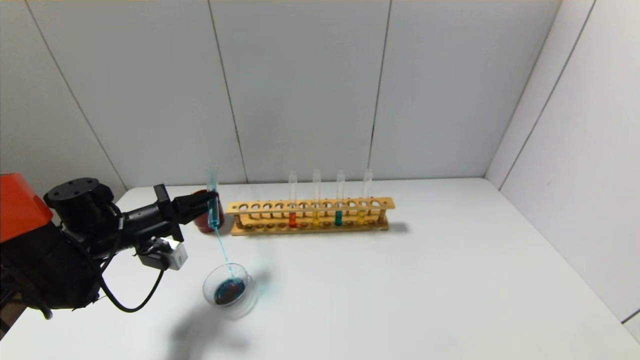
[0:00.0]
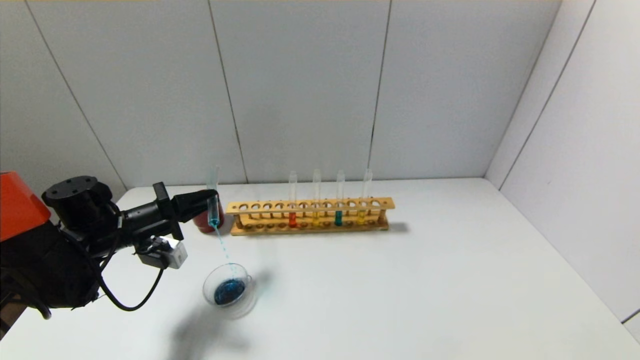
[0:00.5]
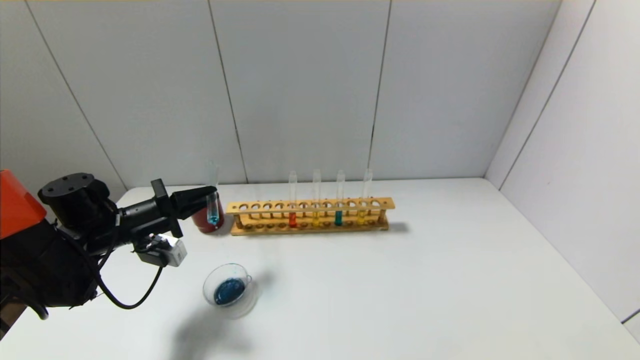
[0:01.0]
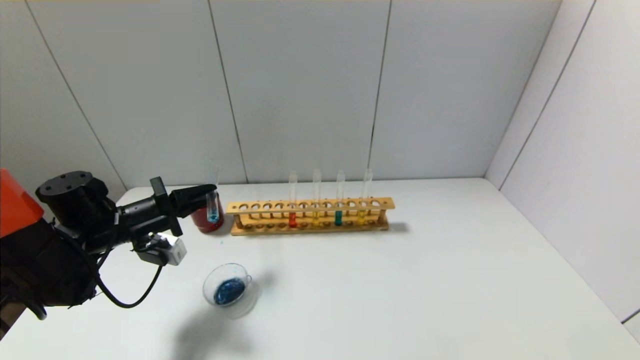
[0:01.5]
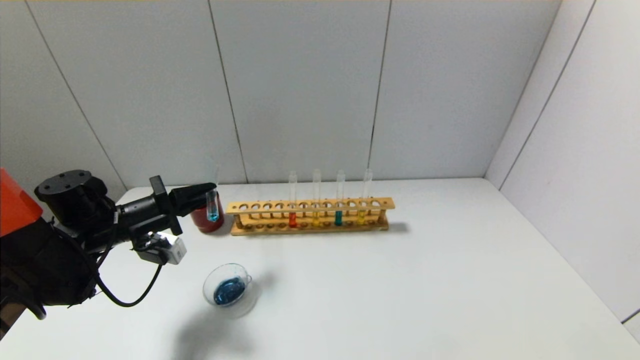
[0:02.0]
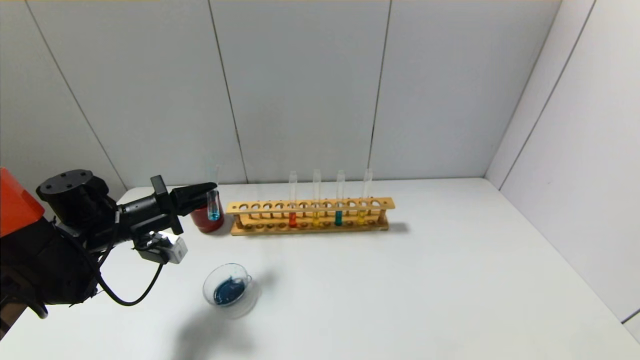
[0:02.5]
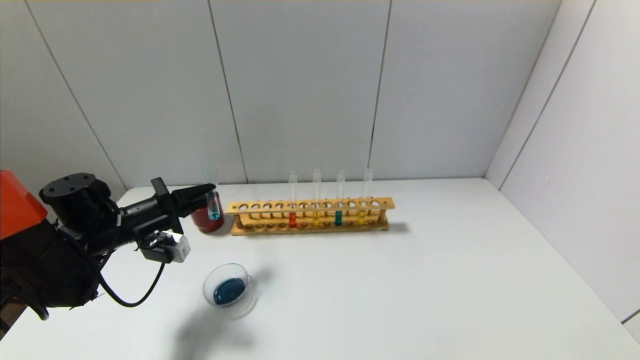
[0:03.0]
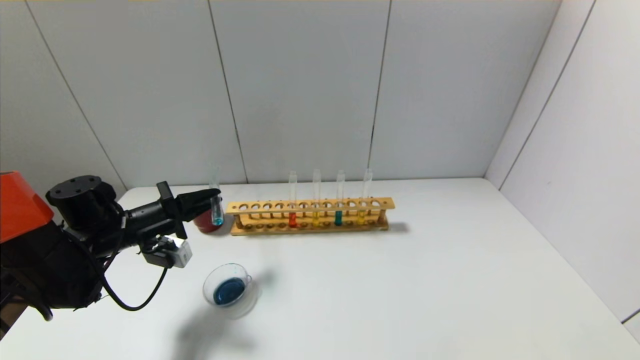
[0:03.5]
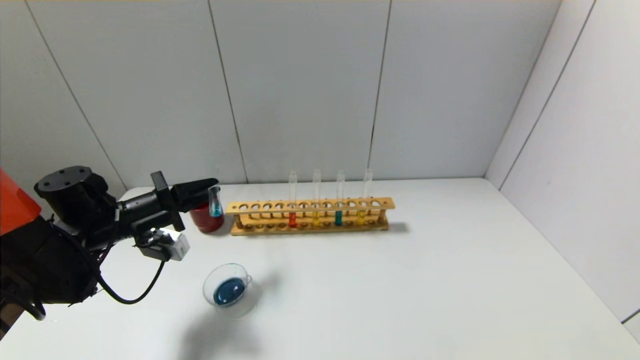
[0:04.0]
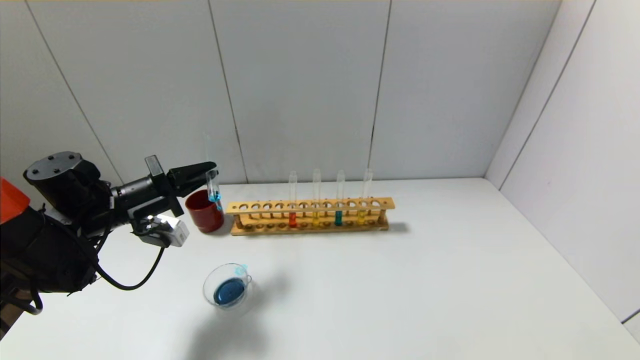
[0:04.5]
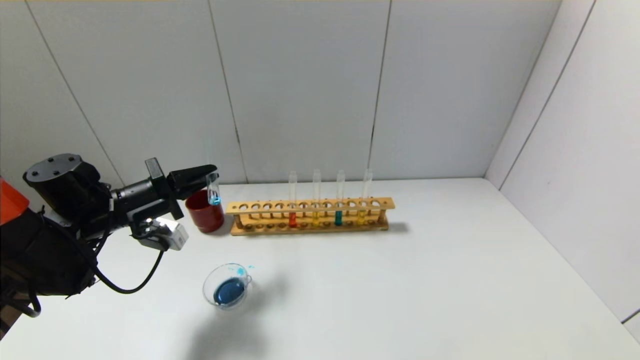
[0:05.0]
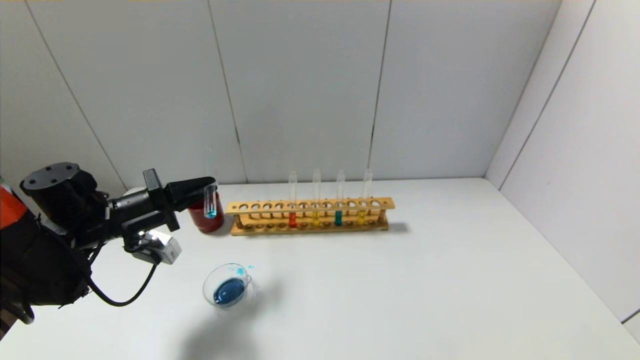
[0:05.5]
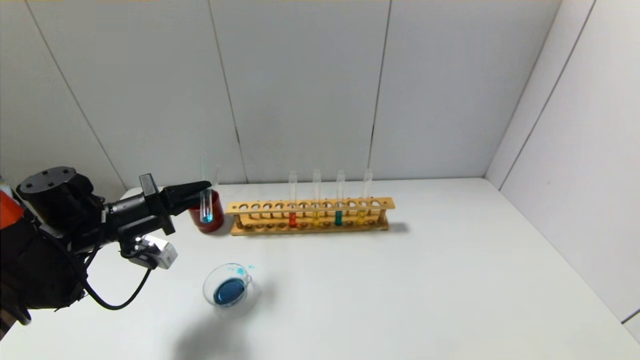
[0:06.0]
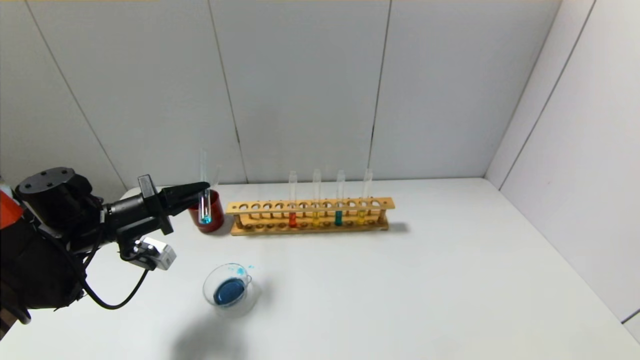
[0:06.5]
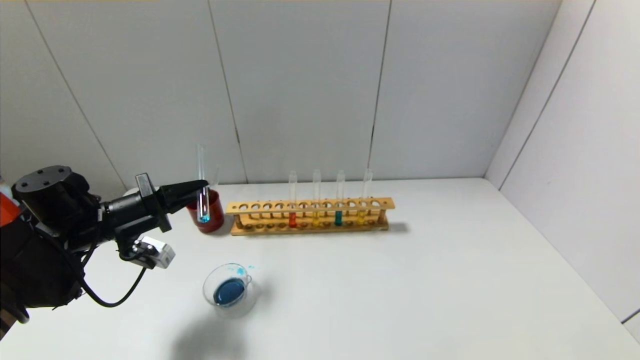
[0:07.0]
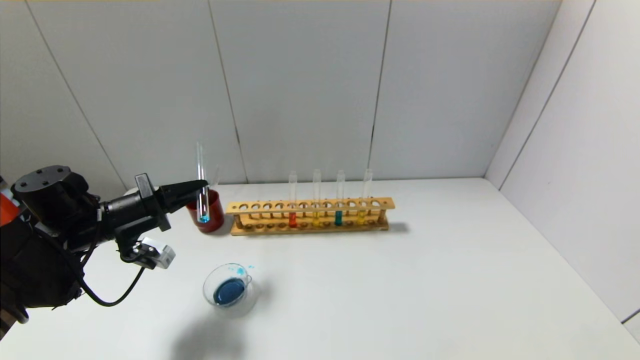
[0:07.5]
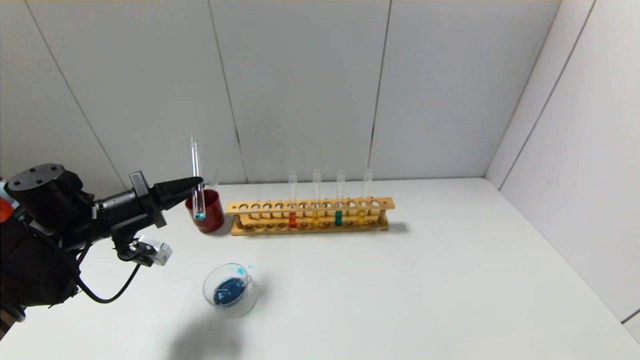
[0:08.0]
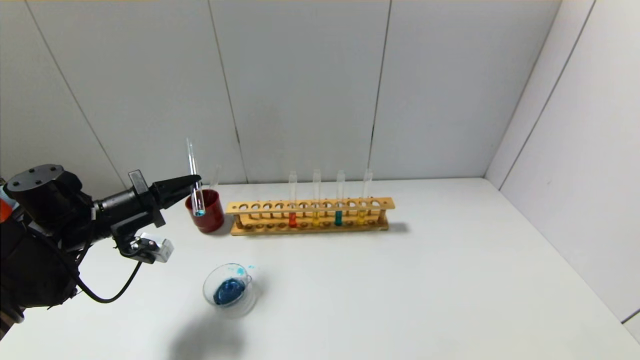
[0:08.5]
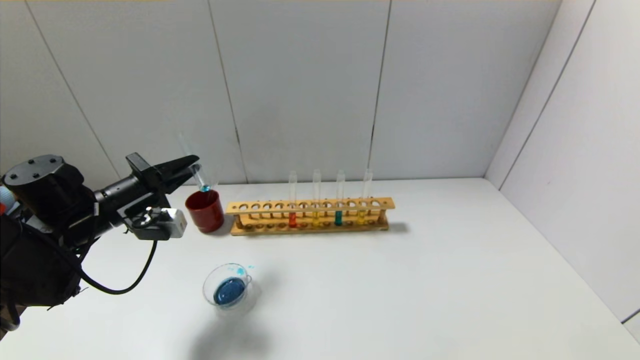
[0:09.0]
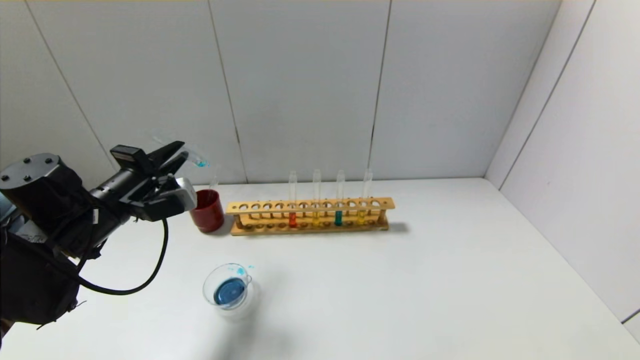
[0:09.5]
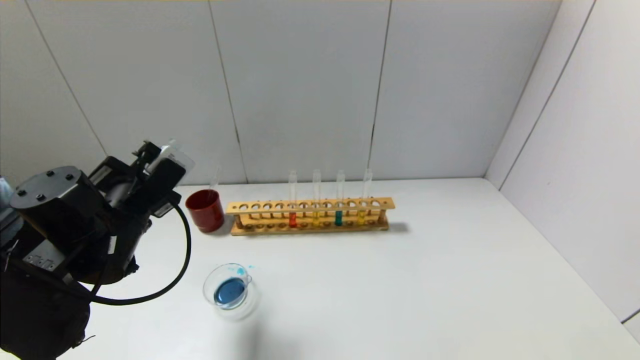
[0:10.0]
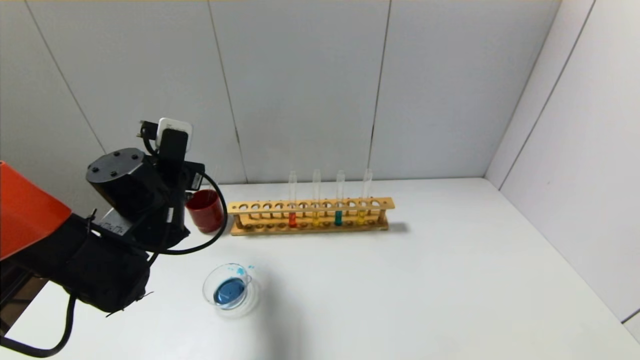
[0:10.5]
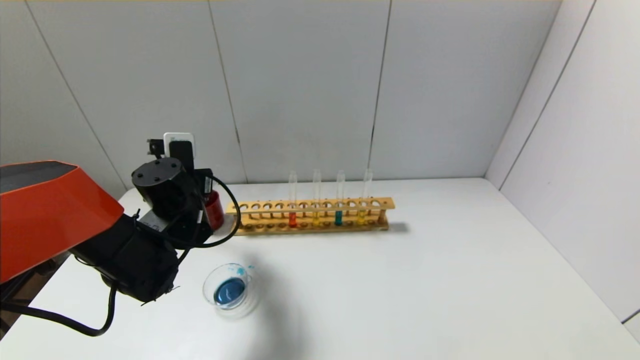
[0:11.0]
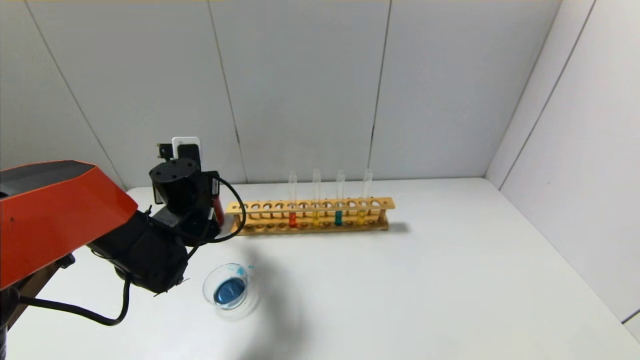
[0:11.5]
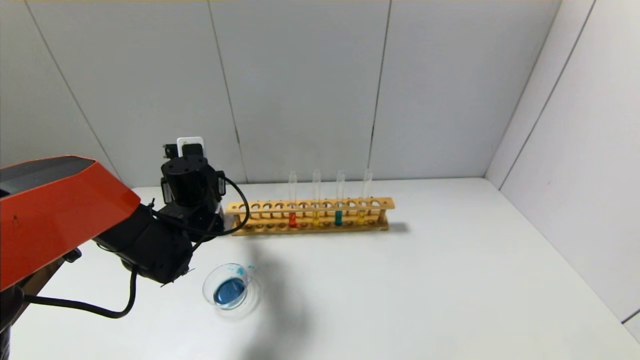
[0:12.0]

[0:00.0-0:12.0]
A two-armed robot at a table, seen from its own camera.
Step, 0:00.0 to 0:09.0: Pour the blue reagent into the graduated cylinder with the left gripper.
0:00.0 to 0:02.0: There are only small adjustments of the grippers.
0:02.0 to 0:04.0: Both grippers stay about where they are.
0:04.0 to 0:08.0: The grippers move only a little.
0:08.0 to 0:10.0: The left gripper is displaced to the right and backward by about 10 cm.
0:10.0 to 0:12.0: The left gripper is displaced forward by some 10 cm.

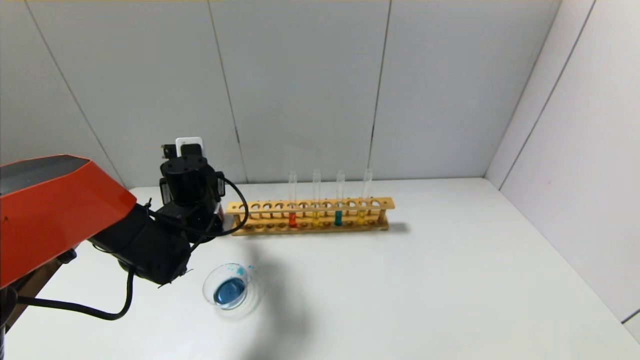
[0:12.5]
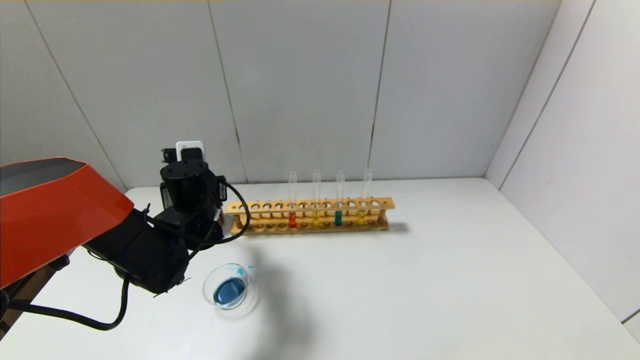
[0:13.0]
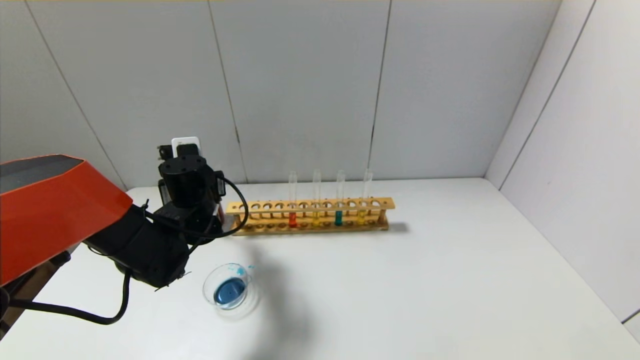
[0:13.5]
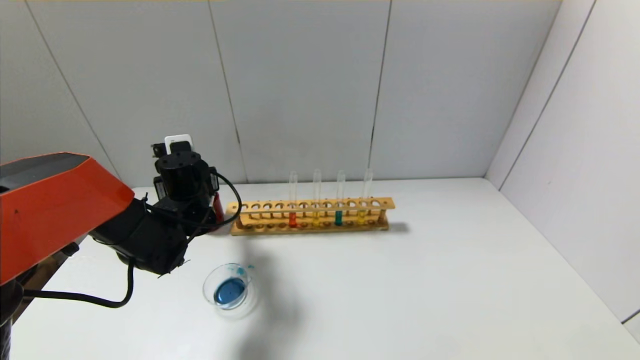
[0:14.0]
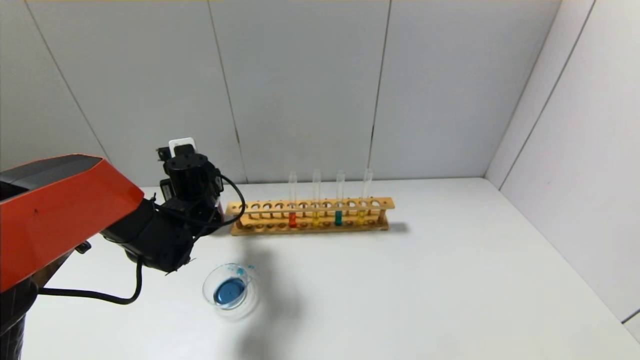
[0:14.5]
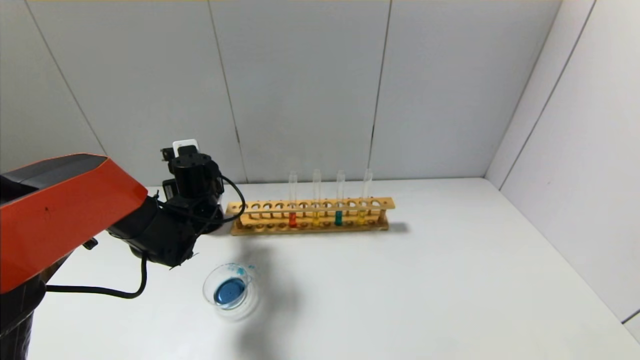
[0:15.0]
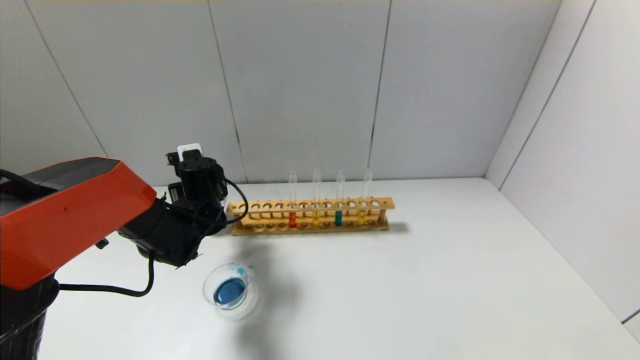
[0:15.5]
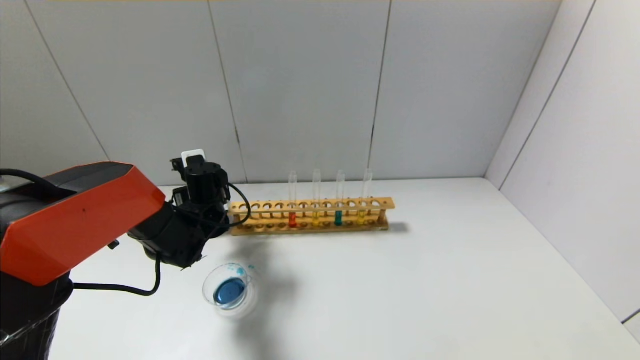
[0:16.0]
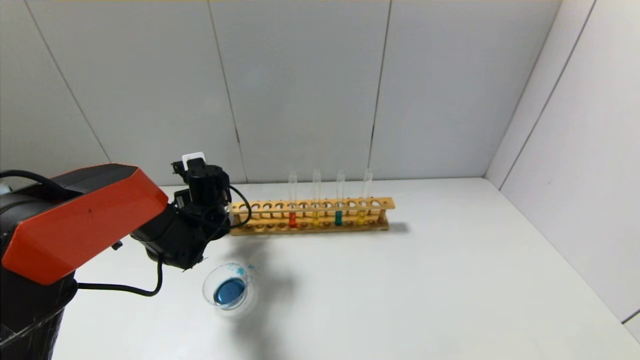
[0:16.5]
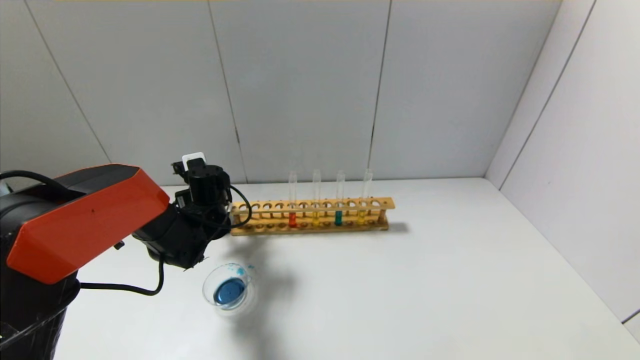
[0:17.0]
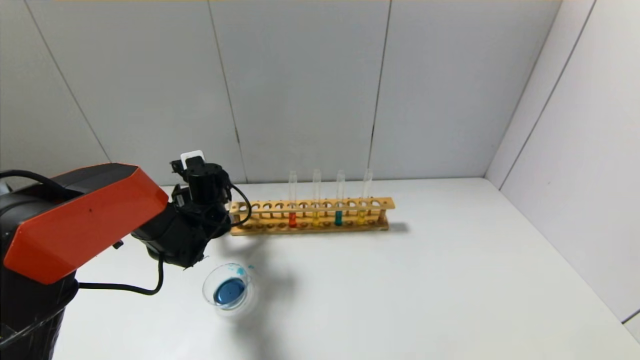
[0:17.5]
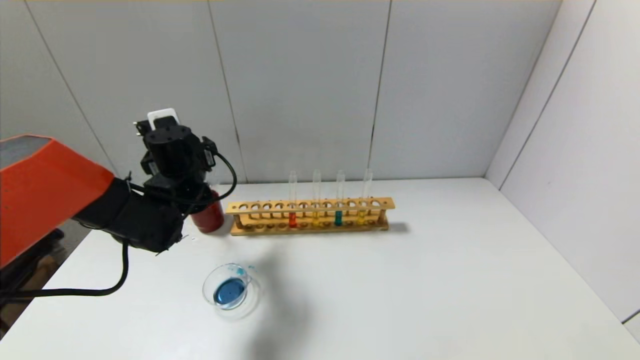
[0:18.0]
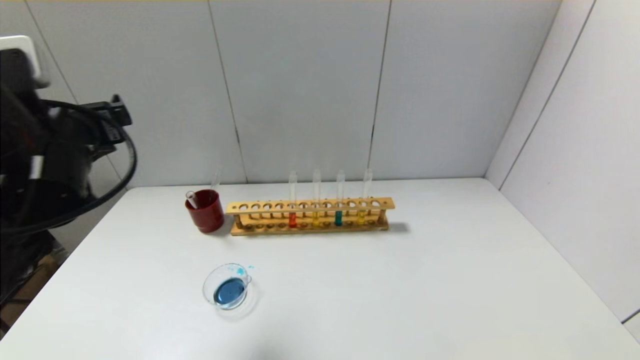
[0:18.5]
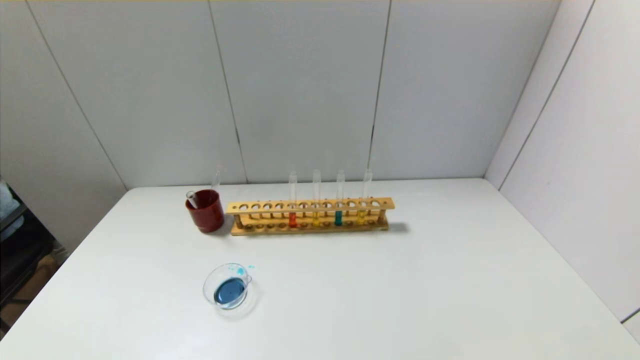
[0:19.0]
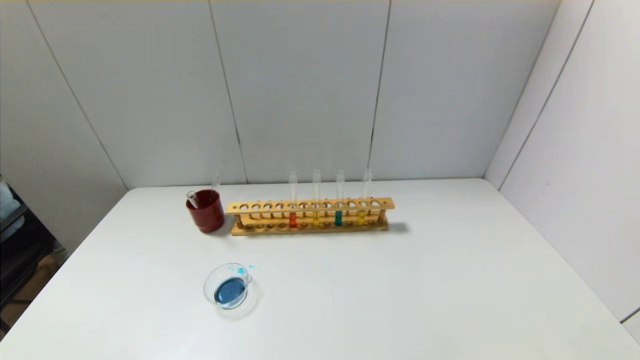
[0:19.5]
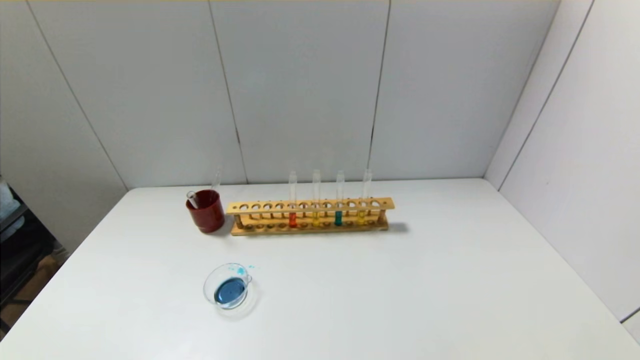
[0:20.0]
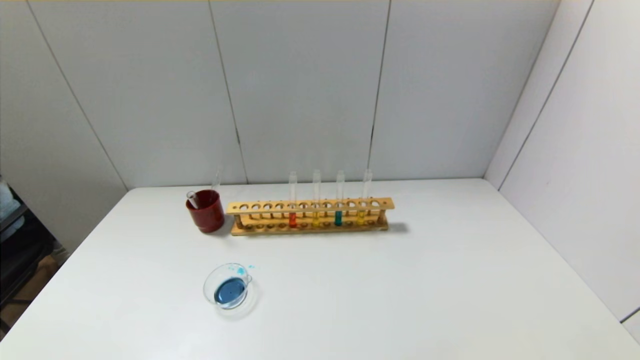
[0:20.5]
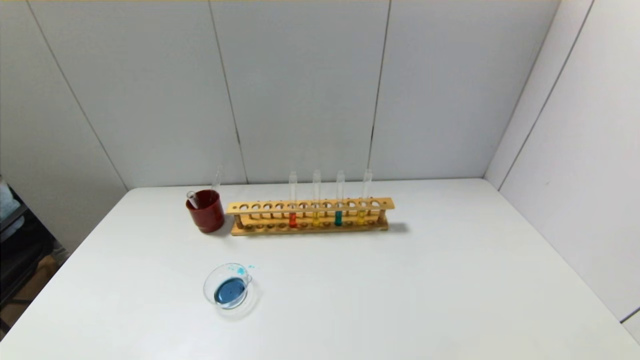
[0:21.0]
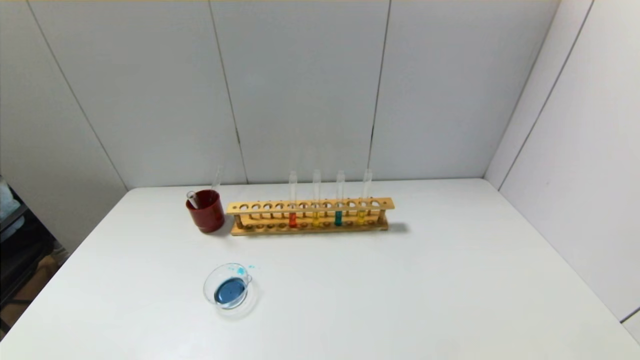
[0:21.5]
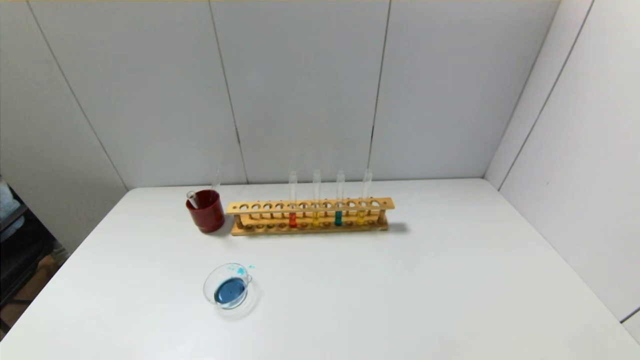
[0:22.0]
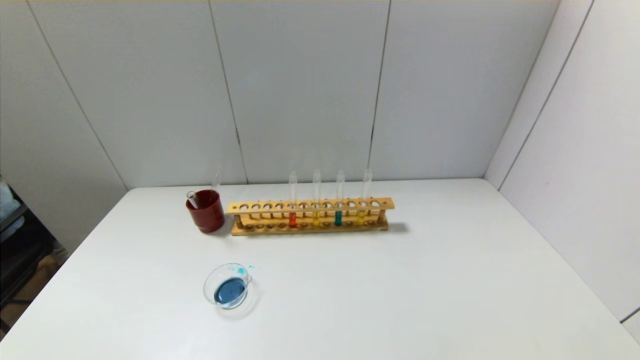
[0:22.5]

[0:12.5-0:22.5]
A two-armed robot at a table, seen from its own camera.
Step, 0:12.5 to 0:17.0: Place the test tube into the brown cup with the left gripper.
0:12.5 to 0:14.5: The grippers move only a little.
0:14.5 to 0:16.5: The grippers stay close to where they were, moving slightly.
0:16.5 to 0:18.5: The left gripper is displaced upward and backward by about 25 cm, and opens.
0:18.5 to 0:20.5: The left gripper is displaced backward by about 30 cm.
